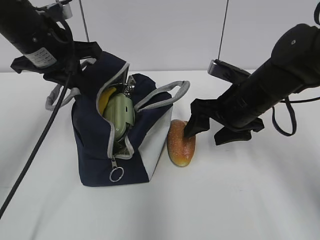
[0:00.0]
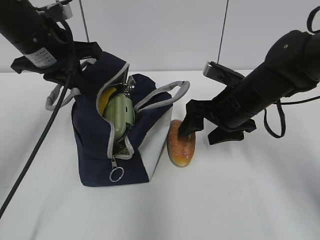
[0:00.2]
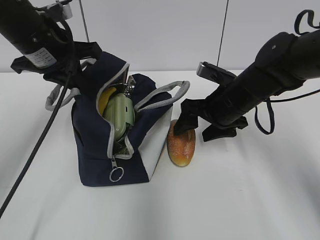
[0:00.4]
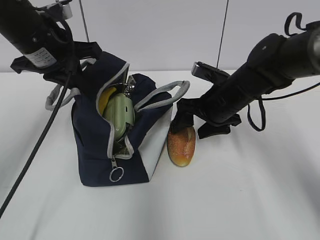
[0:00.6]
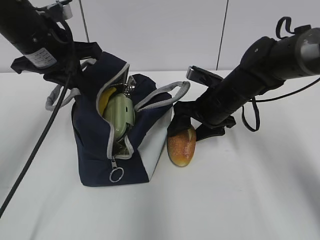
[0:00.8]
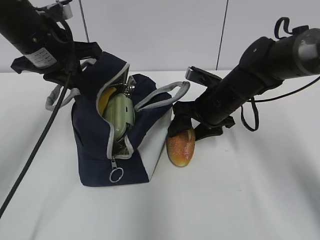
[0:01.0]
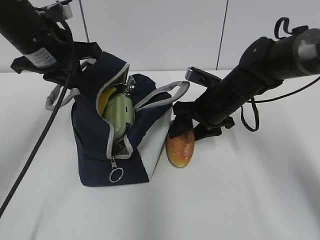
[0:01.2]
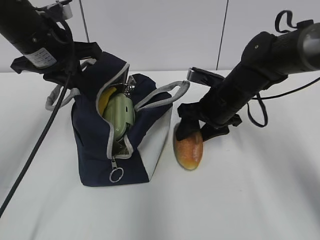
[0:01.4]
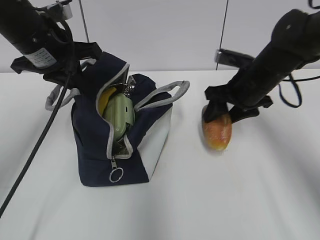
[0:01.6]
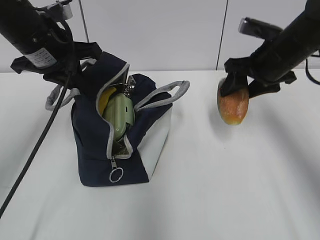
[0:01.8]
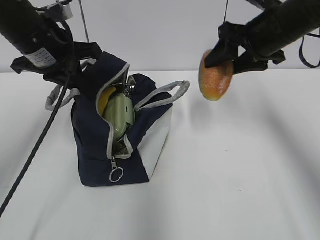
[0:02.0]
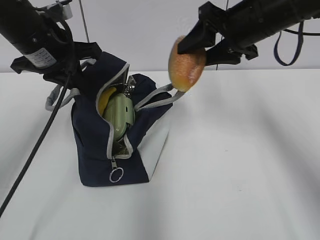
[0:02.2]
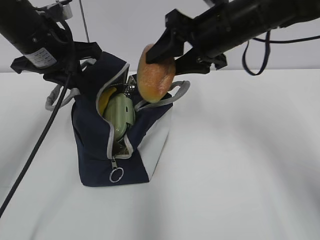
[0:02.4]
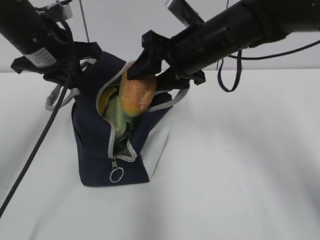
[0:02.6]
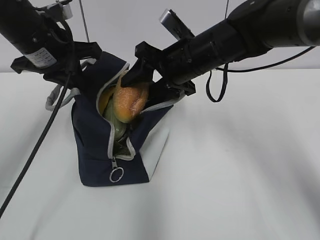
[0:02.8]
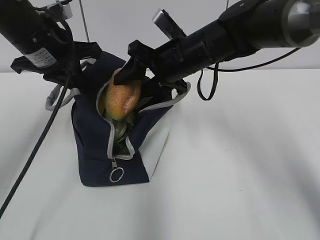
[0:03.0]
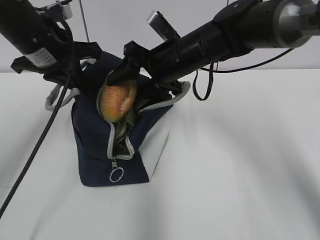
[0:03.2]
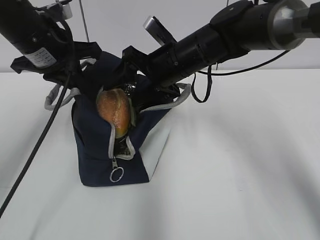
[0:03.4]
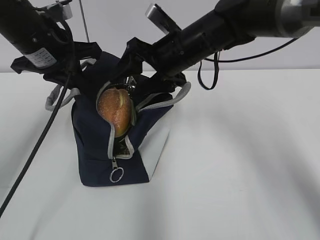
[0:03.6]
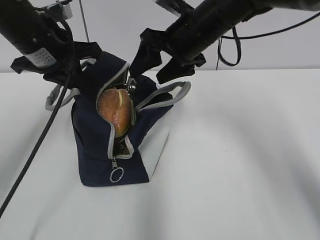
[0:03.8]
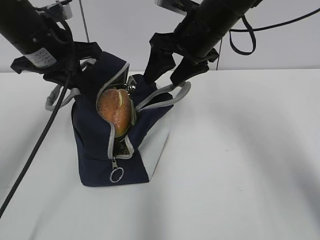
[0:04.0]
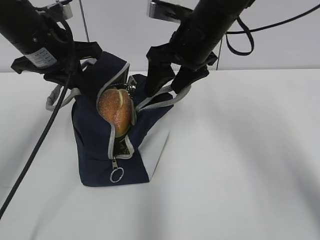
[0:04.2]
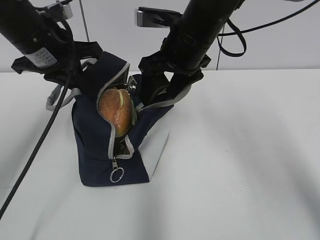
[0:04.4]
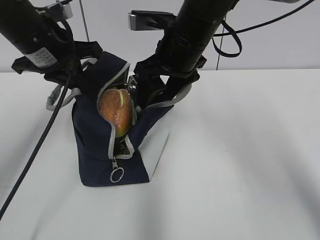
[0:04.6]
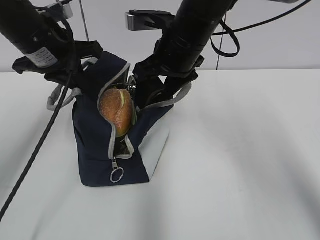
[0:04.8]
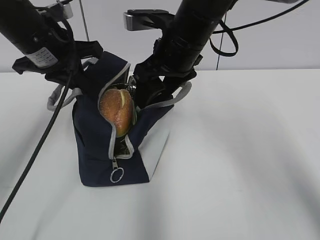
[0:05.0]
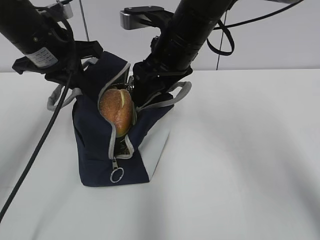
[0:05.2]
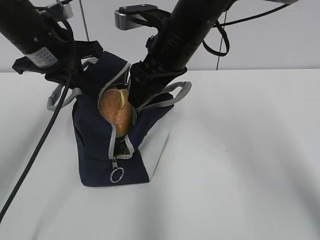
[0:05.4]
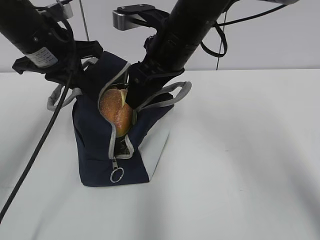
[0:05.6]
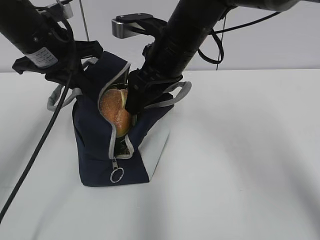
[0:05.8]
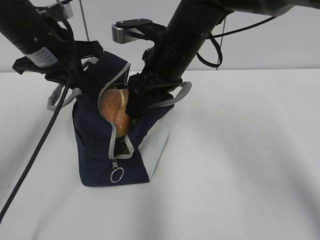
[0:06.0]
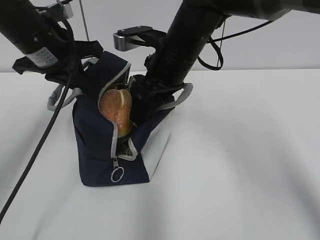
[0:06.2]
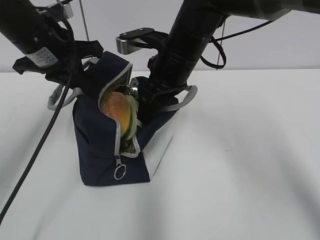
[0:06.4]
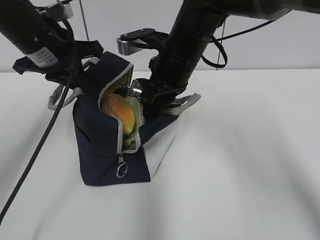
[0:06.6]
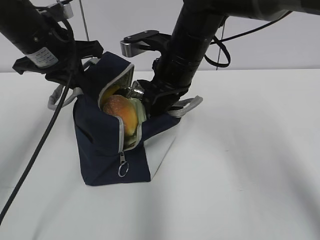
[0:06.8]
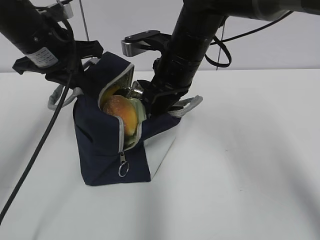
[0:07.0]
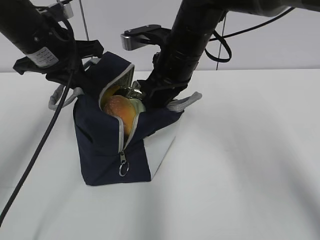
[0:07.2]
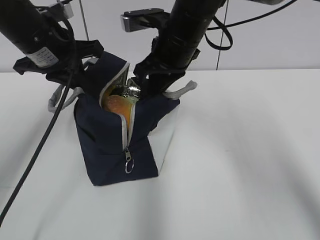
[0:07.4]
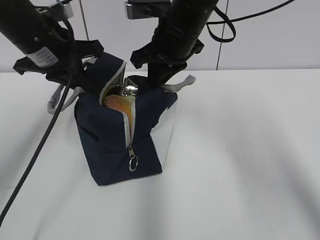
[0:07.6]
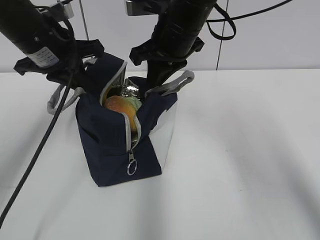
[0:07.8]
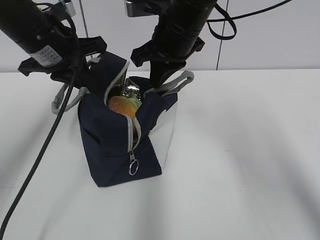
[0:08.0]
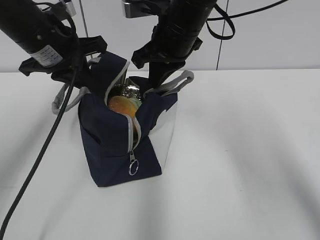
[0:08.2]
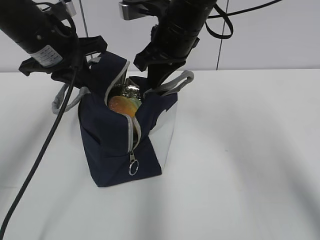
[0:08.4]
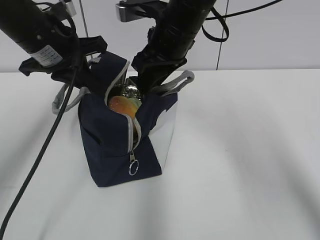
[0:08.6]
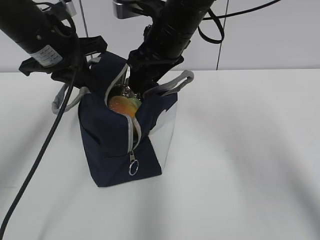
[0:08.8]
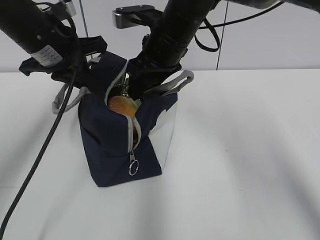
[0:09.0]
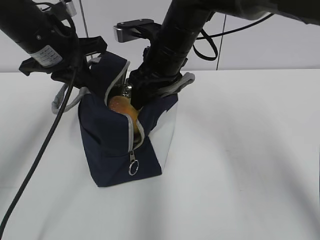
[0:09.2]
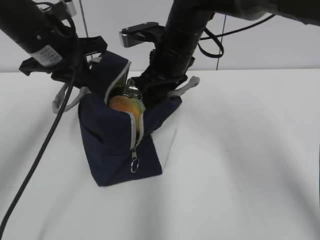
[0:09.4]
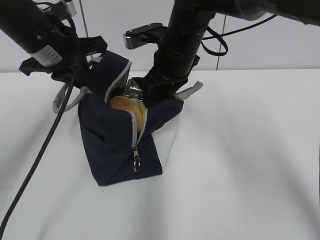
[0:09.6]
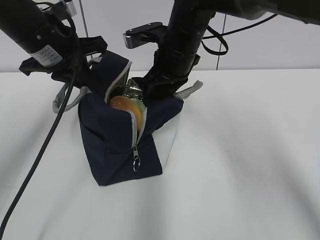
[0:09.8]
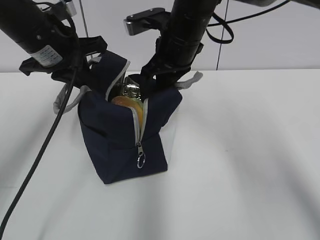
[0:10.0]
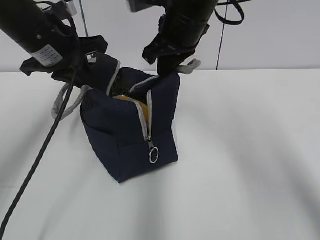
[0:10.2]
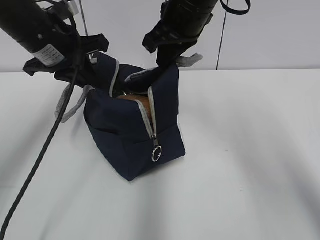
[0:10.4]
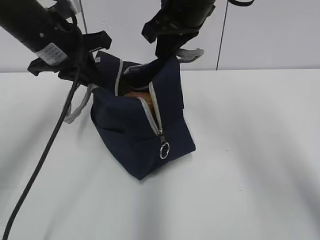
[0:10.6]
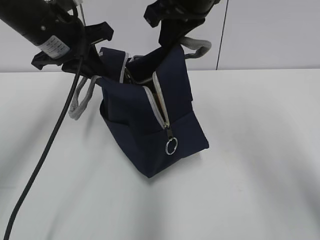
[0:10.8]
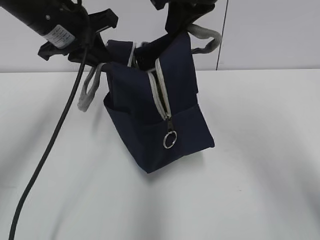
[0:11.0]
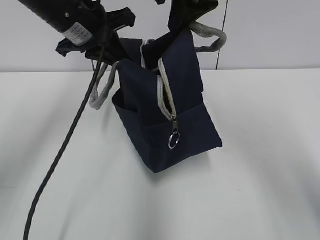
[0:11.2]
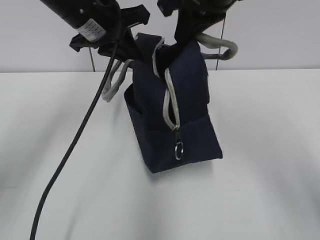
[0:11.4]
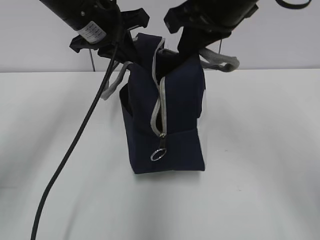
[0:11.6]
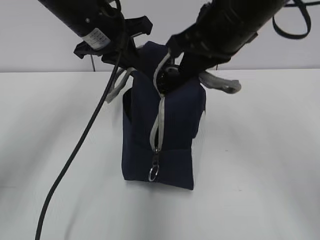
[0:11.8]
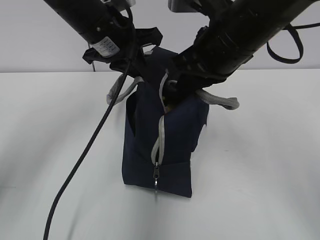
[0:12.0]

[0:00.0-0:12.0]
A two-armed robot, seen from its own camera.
Step, 0:03.6 to 0:10.0: Grab the lunch bag with your right hand.
0:00.0 to 0:01.6: The right gripper shifts approximately 5 cm forward.
0:01.6 to 0:03.0: The right gripper travels to the left by about 15 cm.
0:06.0 to 0:07.6: The right gripper closes its fingers.
0:07.6 to 0:09.0: The right gripper opens its fingers.
0:09.0 to 0:10.4: The right gripper travels upward by some 5 cm, and closes.
0:10.4 to 0:12.0: The left gripper goes roughly 10 cm to the right, while the right gripper moves backward, some 10 cm, and travels upward and back again, approximately 5 cm each way.

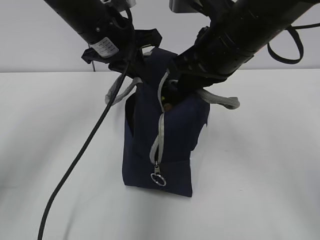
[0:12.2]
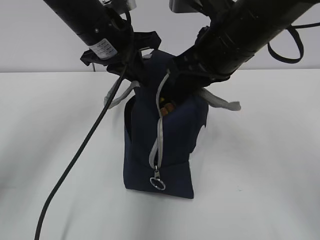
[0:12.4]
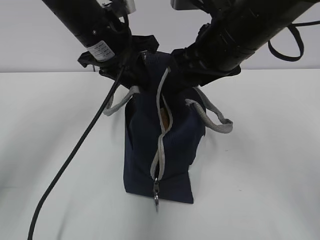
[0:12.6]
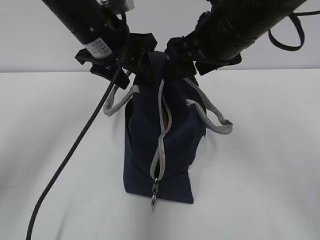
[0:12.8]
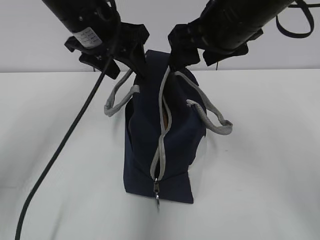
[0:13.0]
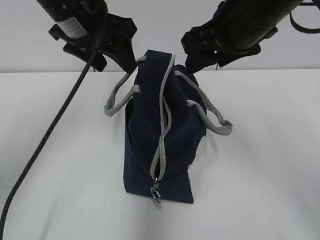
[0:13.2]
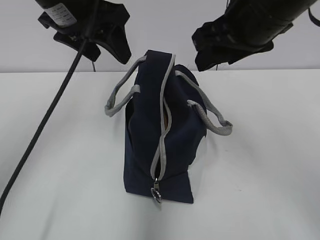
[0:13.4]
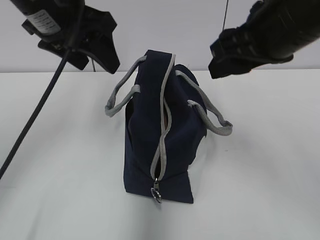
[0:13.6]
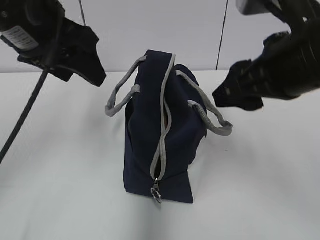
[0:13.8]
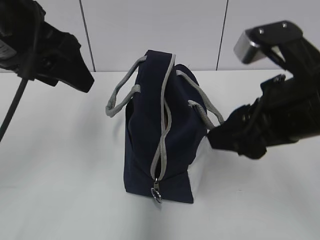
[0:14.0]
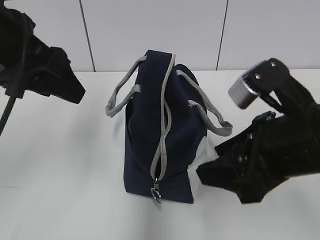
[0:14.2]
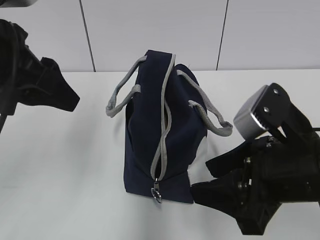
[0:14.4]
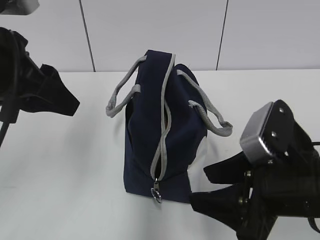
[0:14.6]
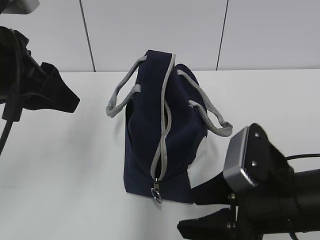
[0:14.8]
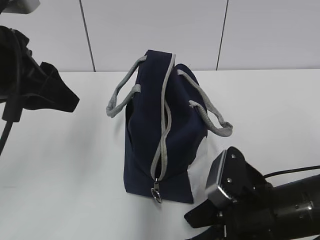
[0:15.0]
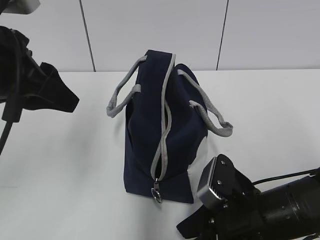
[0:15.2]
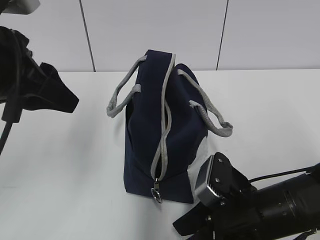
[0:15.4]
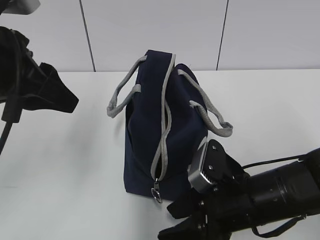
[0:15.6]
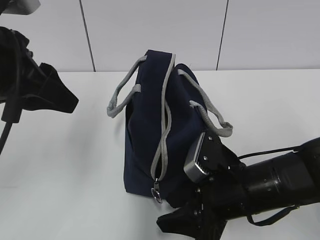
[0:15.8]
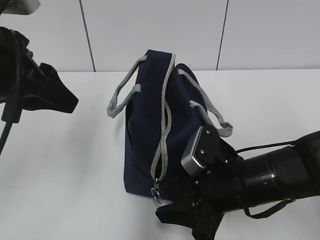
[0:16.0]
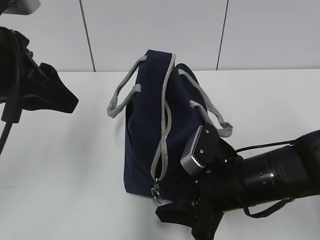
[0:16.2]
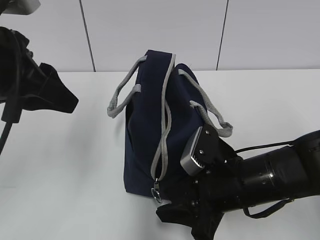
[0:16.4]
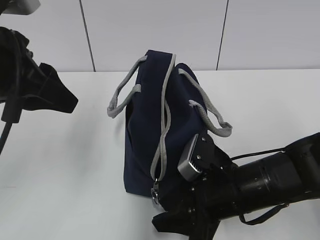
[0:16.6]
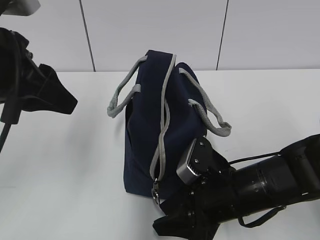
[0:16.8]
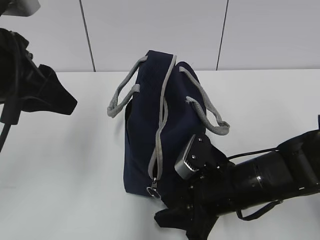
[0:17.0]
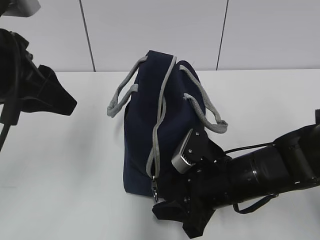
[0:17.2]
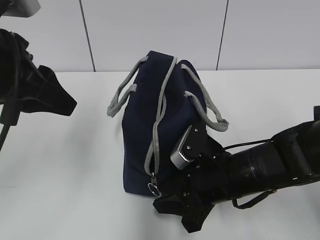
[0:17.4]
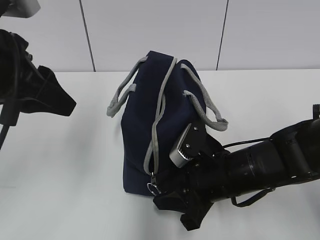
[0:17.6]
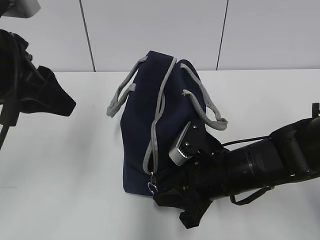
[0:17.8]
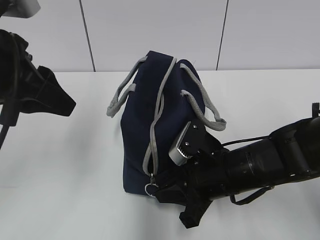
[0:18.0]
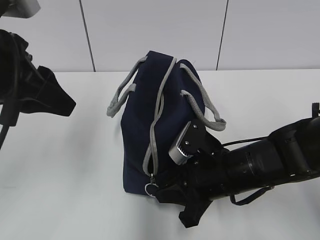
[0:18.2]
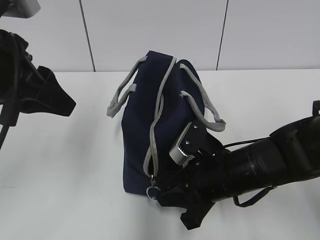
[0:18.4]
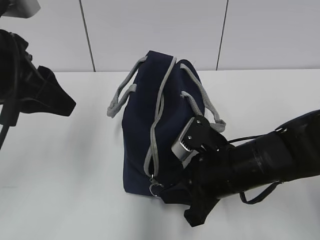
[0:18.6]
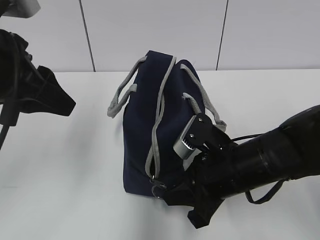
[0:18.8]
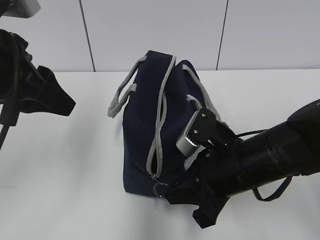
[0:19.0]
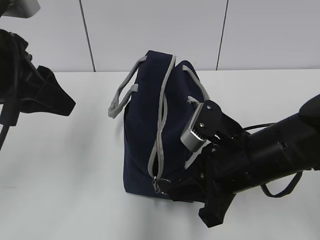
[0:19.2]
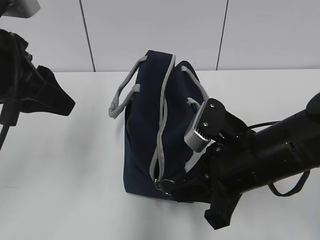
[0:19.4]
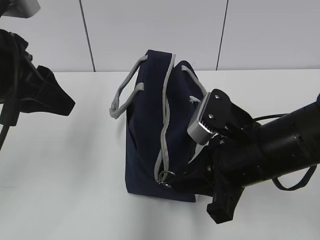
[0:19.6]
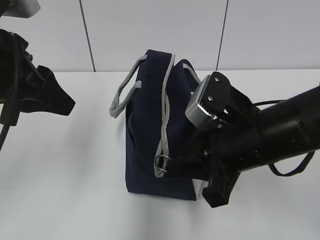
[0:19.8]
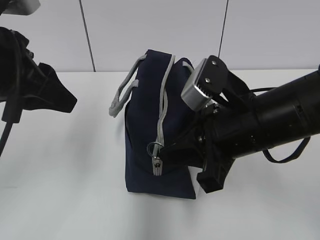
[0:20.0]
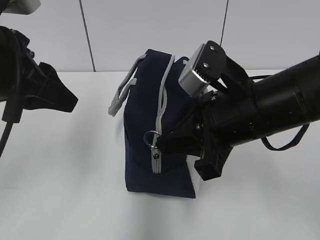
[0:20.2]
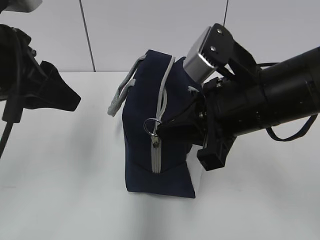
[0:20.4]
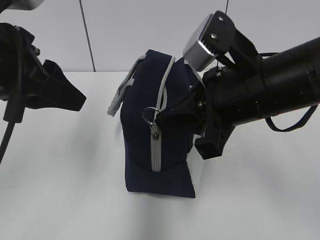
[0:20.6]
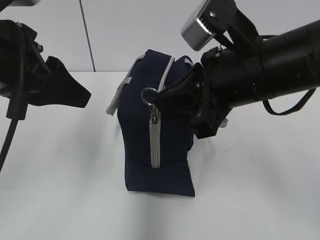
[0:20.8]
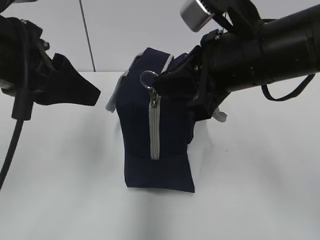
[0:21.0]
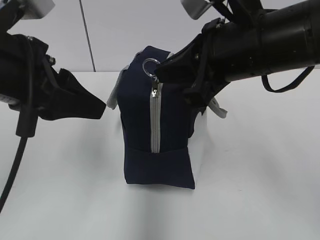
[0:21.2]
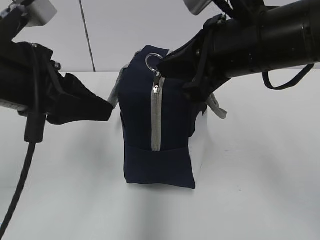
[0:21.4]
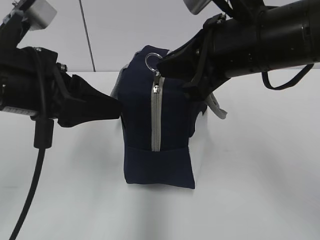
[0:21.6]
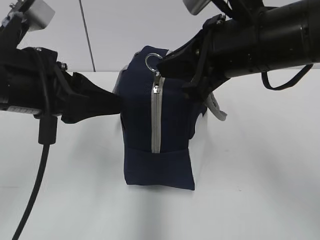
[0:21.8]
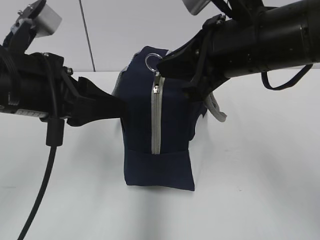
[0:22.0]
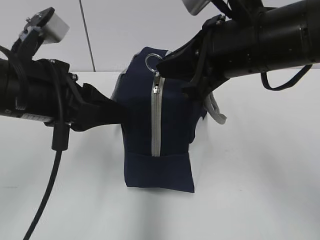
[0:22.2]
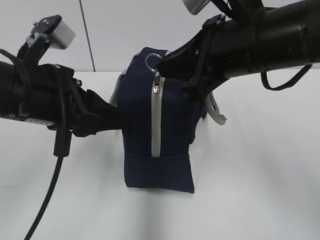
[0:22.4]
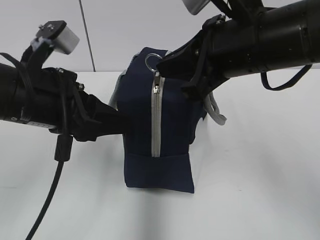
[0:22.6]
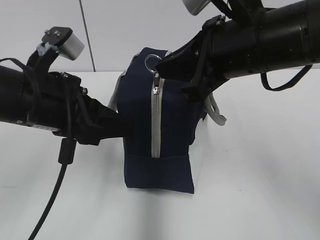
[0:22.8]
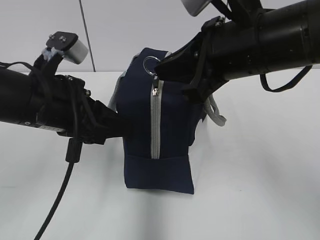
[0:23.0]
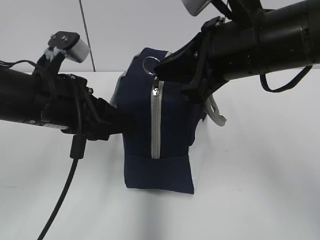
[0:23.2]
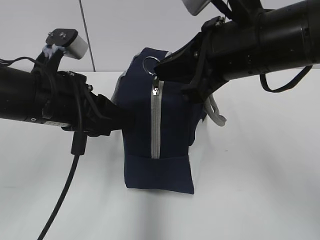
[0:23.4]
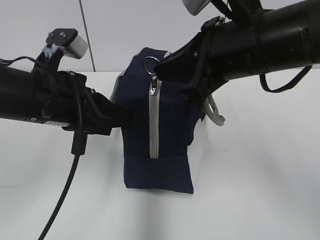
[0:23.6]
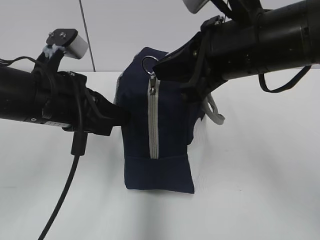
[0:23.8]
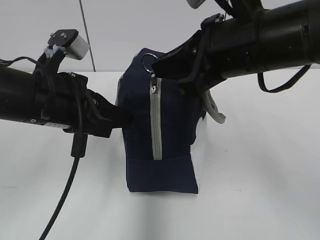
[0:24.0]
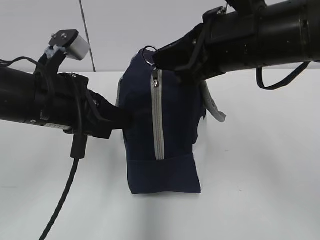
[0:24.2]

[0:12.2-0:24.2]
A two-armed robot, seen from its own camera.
0:12.2 to 0:13.8: The right gripper heads backward and to the right, covering roughly 10 cm, and opens up; the left gripper travels backward, to the left and upward by some 15 cm, and opens up.
0:13.8 to 0:15.2: The right gripper travels downward by about 20 cm, while the left gripper heads backward, covering some 5 cm.
0:15.2 to 0:16.6: The grippers move only a little.
0:16.6 to 0:18.2: The right gripper closes up.
0:18.2 to 0:19.8: The right gripper heads upward, covering some 10 cm.
0:19.8 to 0:21.2: The right gripper is displaced upward by roughly 10 cm.
0:21.2 to 0:22.6: The left gripper heads downward, covering about 5 cm.
0:22.6 to 0:24.2: The left gripper closes its fingers.
